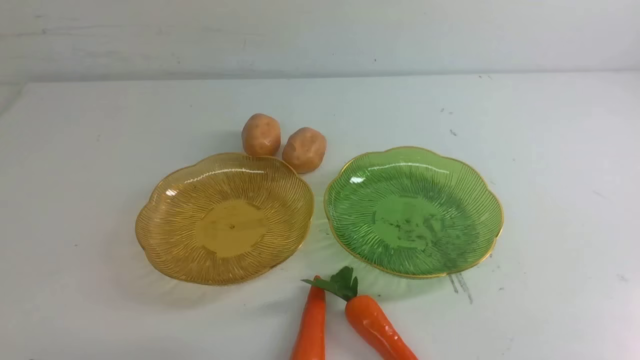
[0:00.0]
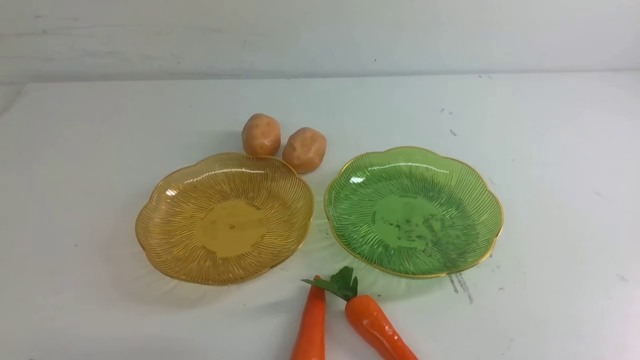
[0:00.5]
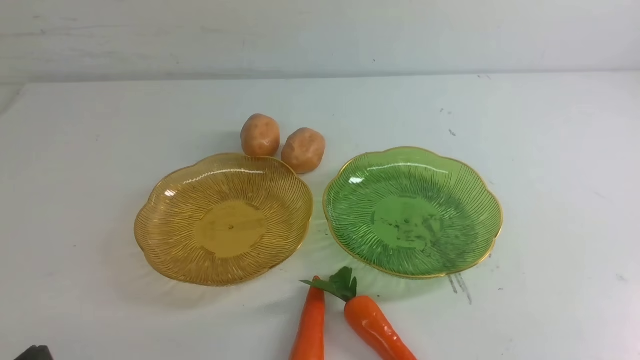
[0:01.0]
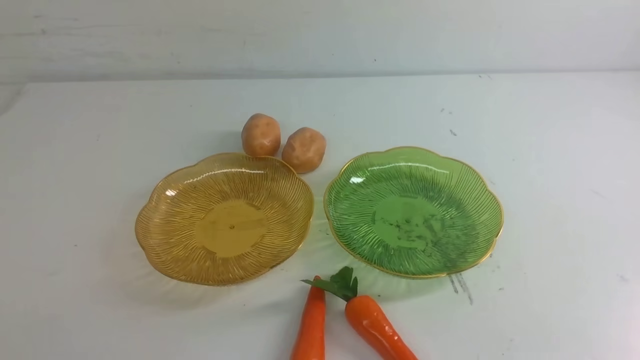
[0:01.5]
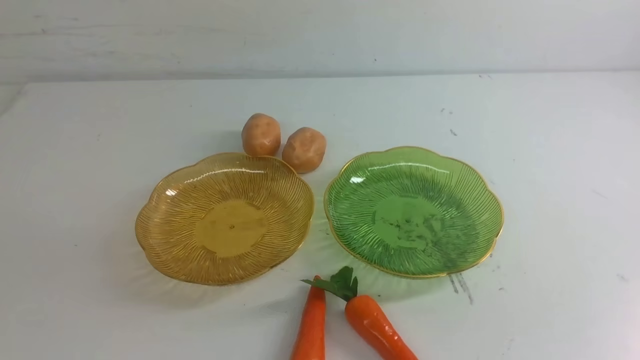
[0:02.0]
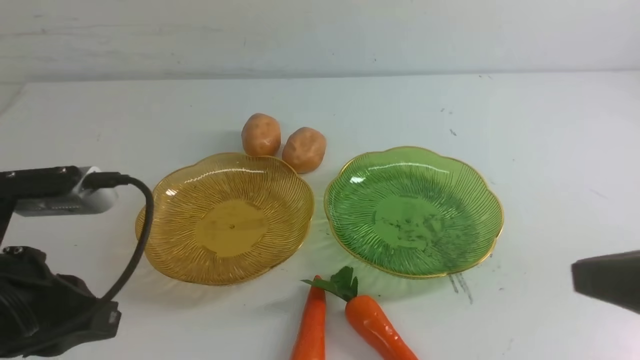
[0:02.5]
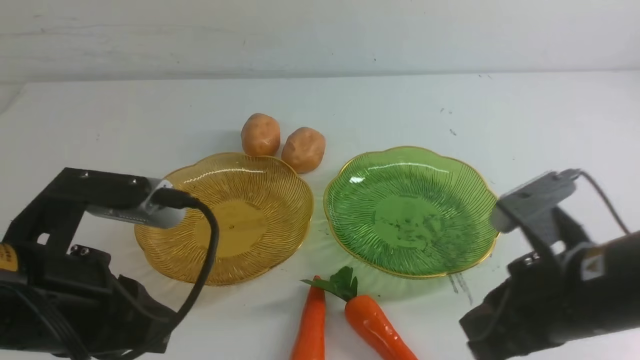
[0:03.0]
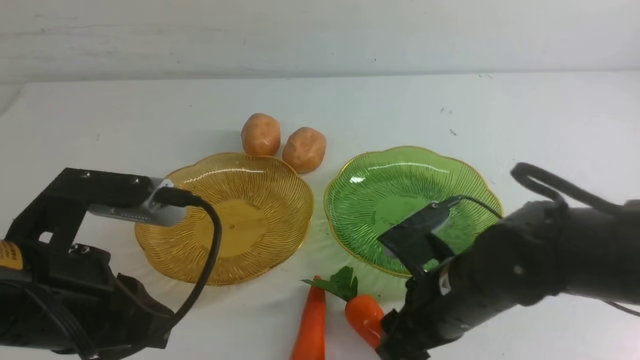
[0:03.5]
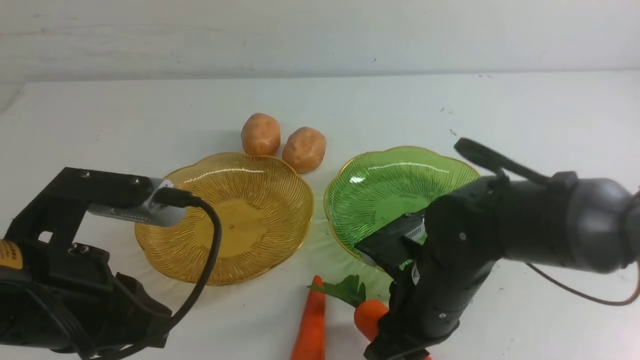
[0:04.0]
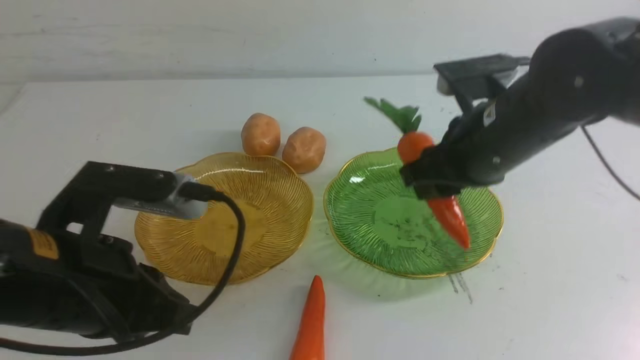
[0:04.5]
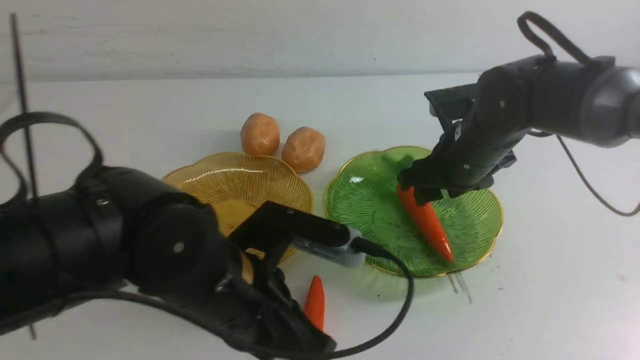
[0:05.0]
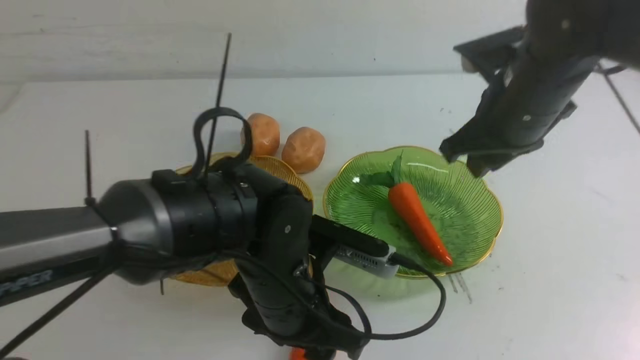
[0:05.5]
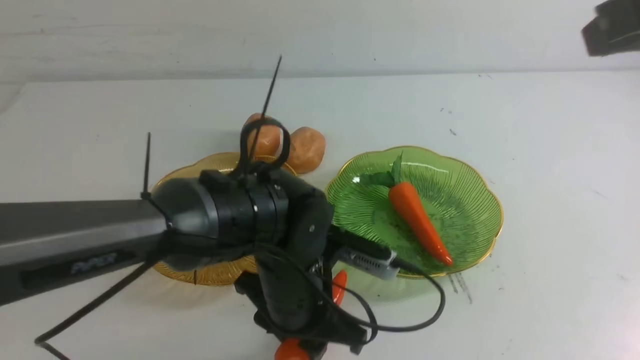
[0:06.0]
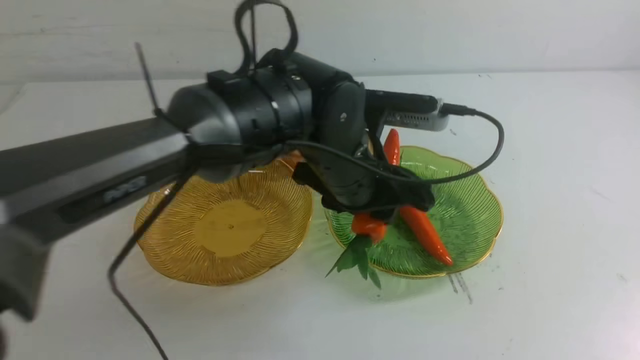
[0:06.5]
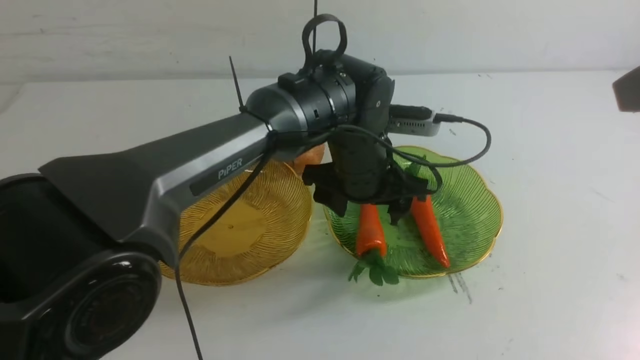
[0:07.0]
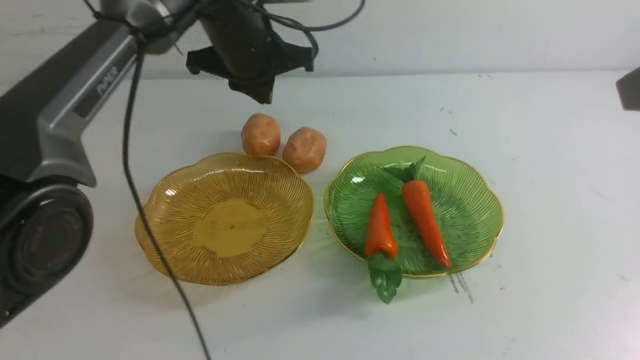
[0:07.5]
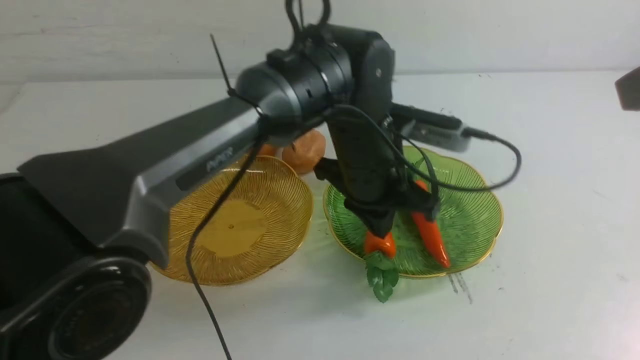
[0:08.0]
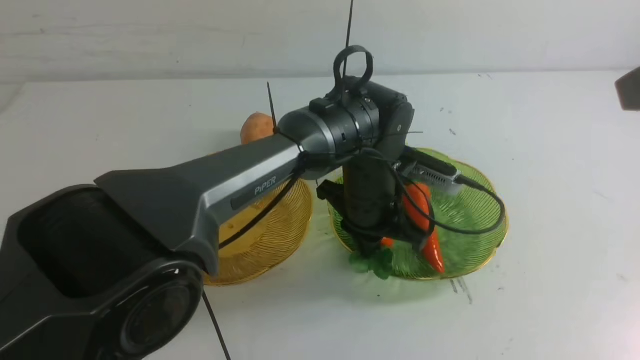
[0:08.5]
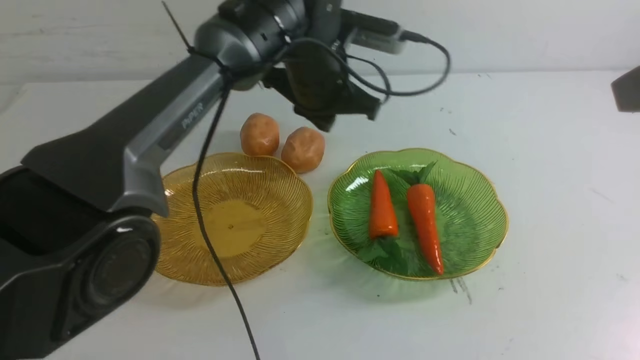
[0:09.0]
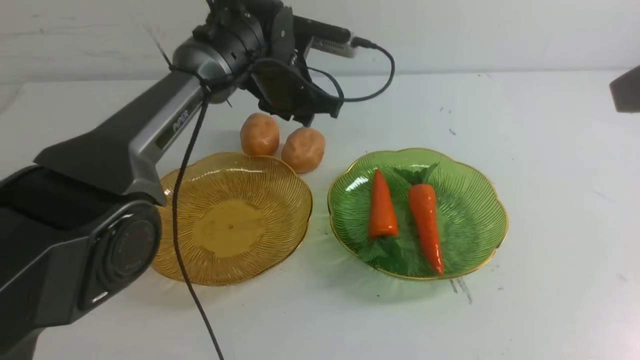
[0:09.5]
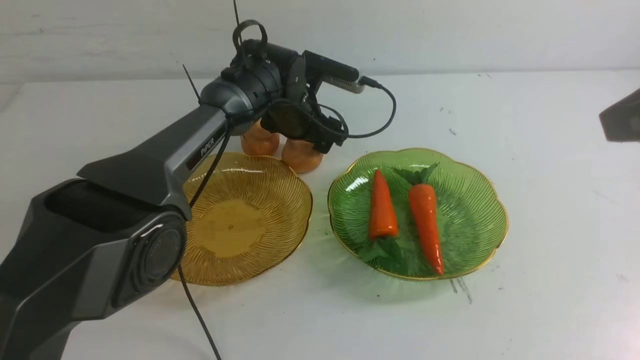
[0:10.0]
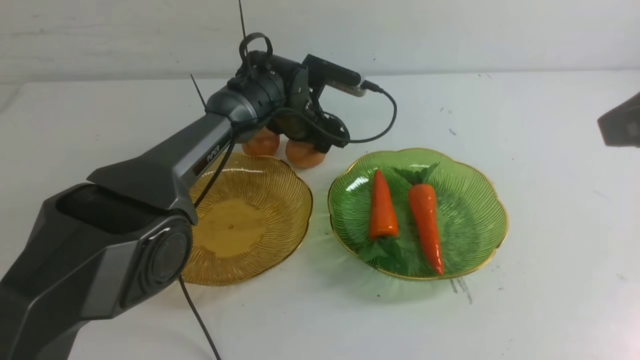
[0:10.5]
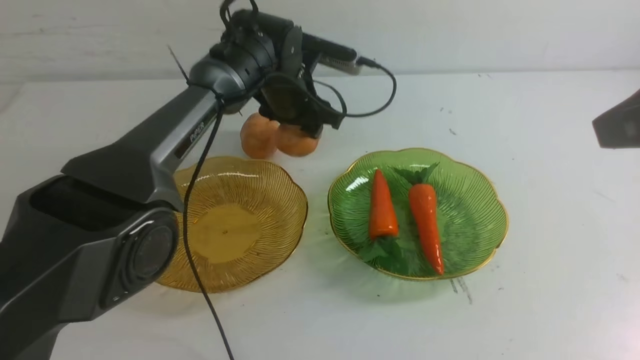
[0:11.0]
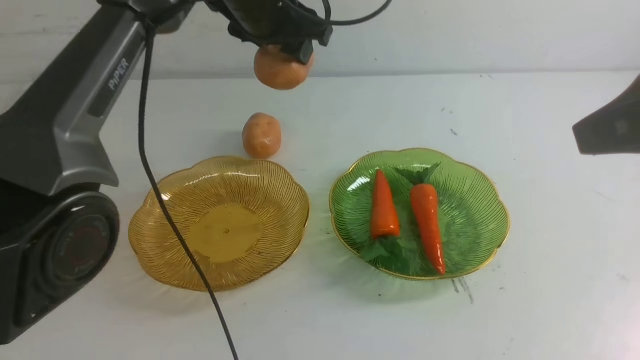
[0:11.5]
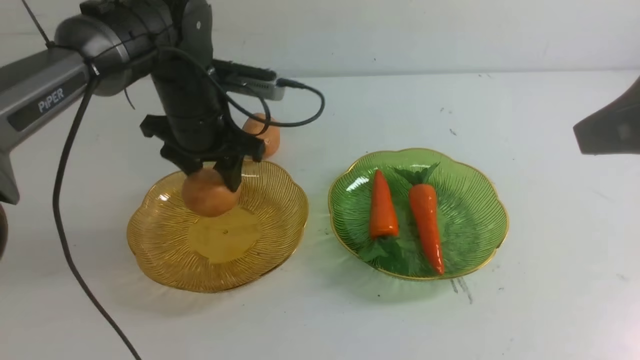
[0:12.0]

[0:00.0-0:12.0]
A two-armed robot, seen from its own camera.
Step, 0:00.0 to 0:05.0: use the right arm to grab a carrot and put it into the right plate.
Step, 0:05.5 to 0:07.0: use the left arm to grab a carrot and put it into the right plate.
0:02.0 to 0:04.0: The right gripper goes some 25 cm to the left and forward, and opens its fingers. Meanwhile the left gripper goes roughly 5 cm forward.
0:04.0 to 0:06.0: The left gripper shifts roughly 25 cm to the right and forward, and opens up. Meanwhile the right gripper travels upward and to the right by approximately 30 cm, and closes up.
0:06.0 to 0:08.0: The left gripper travels downward by roughly 5 cm, travels forward and back again, about 15 cm each way, and closes up.
0:08.0 to 0:10.0: The left gripper goes approximately 20 cm forward and to the left, and opens its fingers.
0:10.0 to 0:12.0: The left gripper travels to the left and backward by about 15 cm, reaches some 15 cm upward, then returns, and closes its fingers.

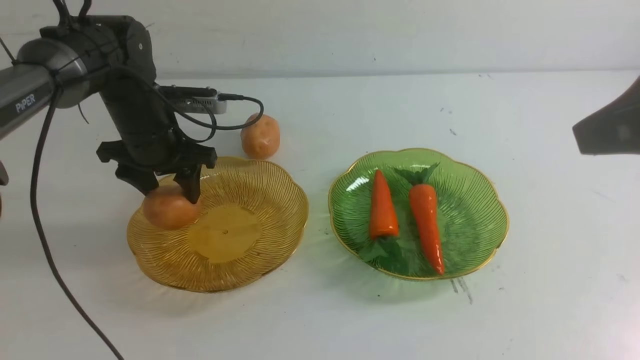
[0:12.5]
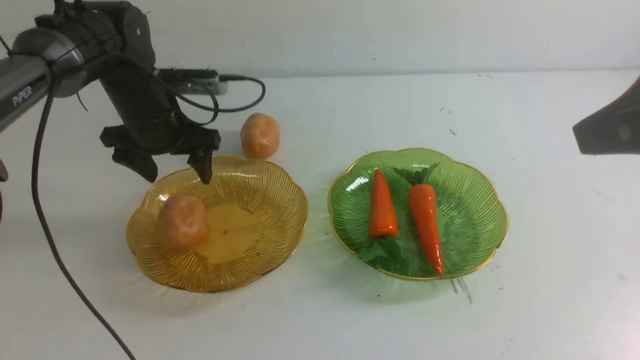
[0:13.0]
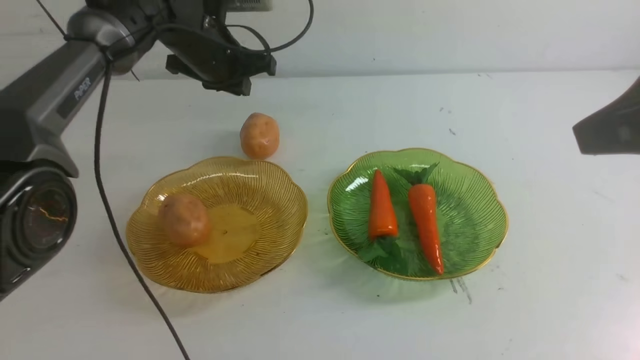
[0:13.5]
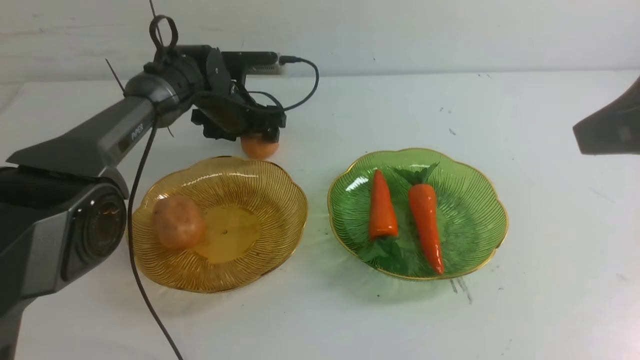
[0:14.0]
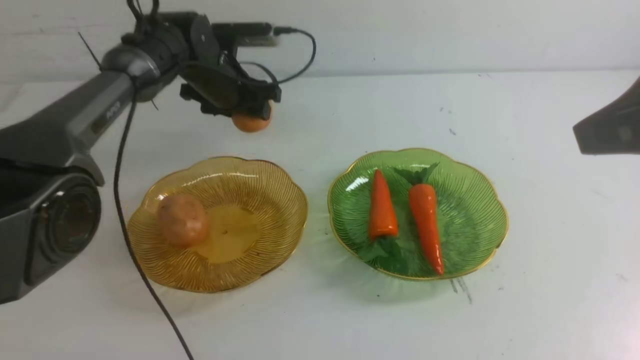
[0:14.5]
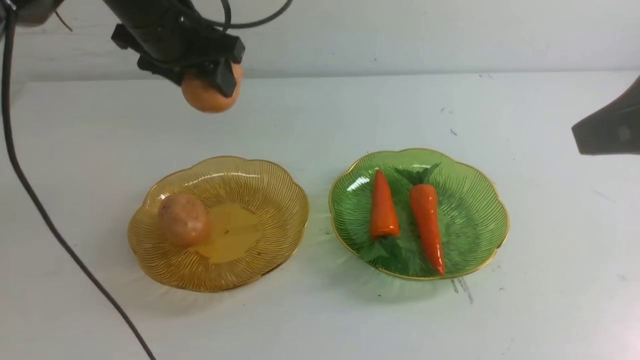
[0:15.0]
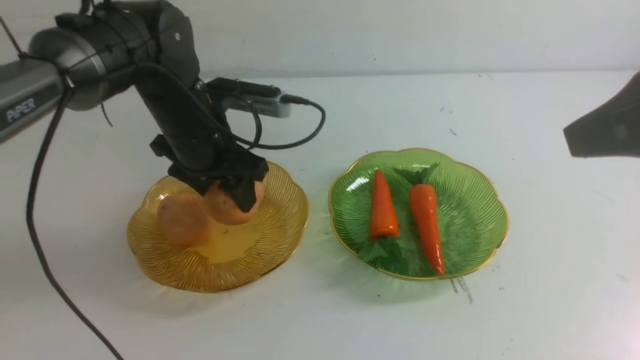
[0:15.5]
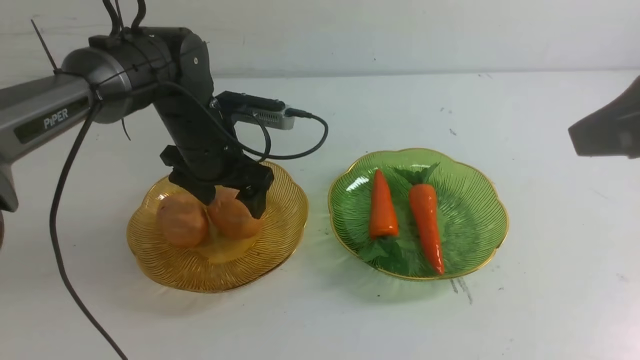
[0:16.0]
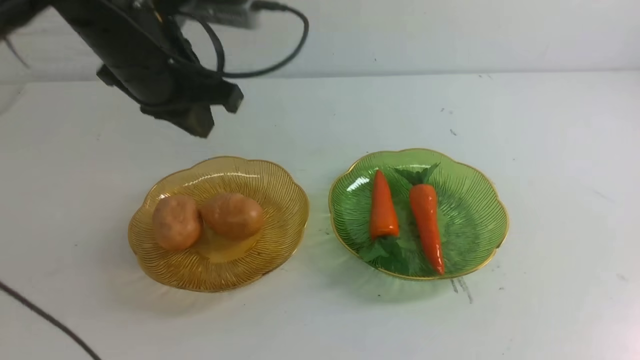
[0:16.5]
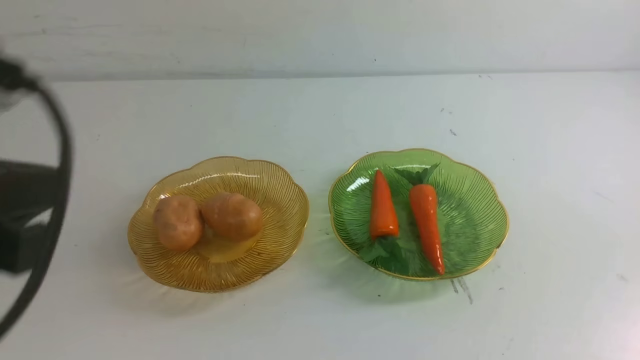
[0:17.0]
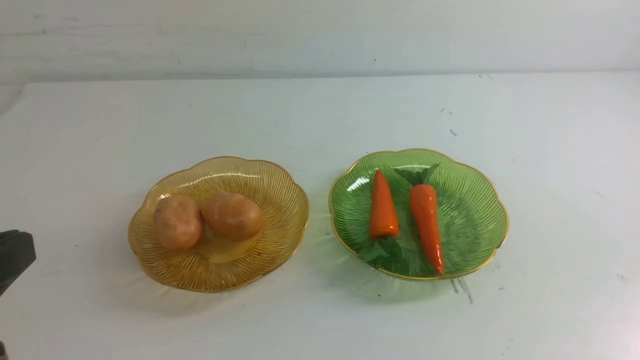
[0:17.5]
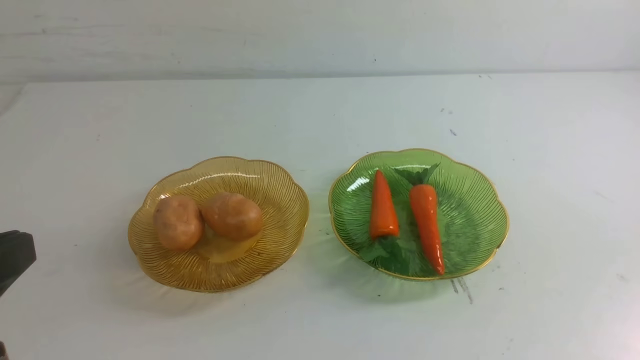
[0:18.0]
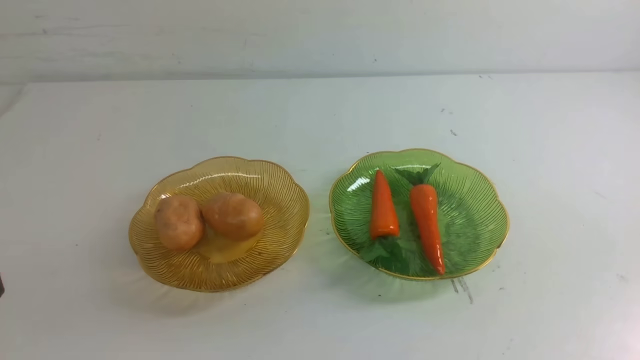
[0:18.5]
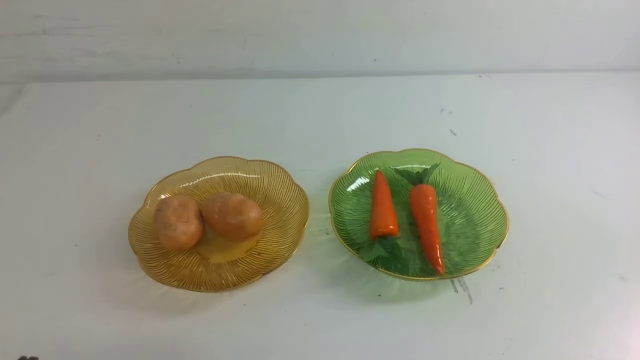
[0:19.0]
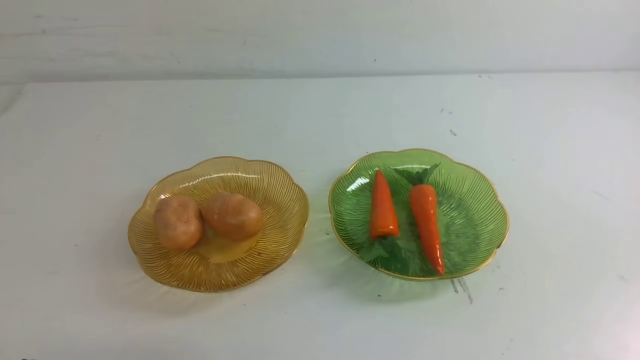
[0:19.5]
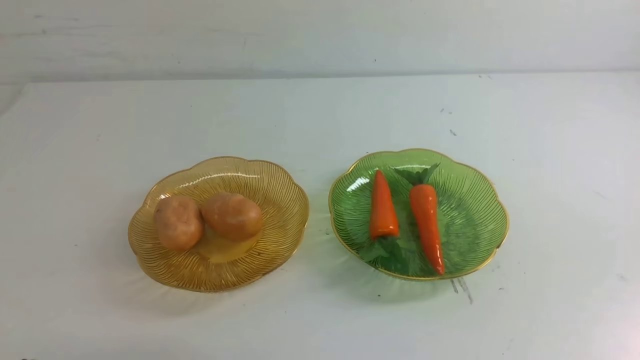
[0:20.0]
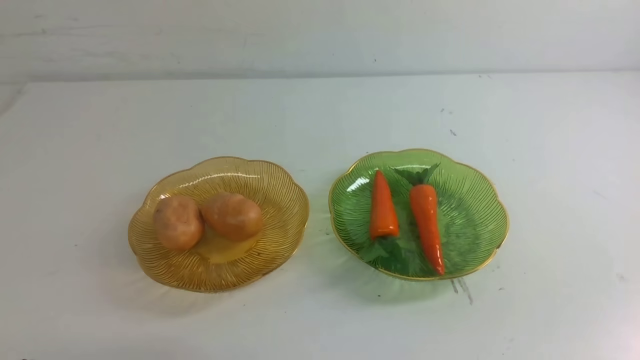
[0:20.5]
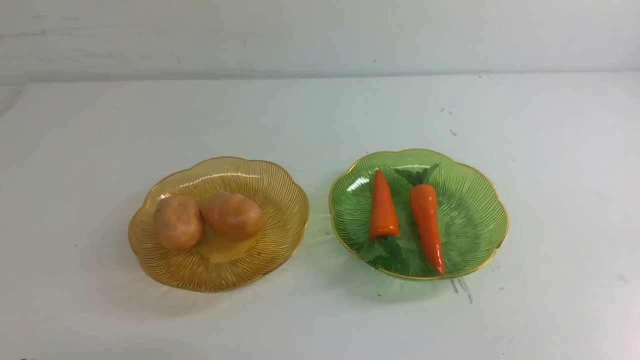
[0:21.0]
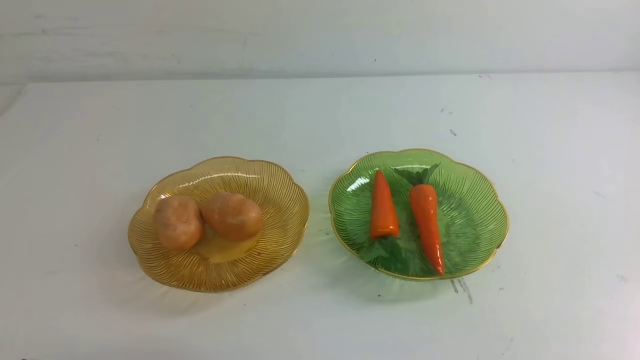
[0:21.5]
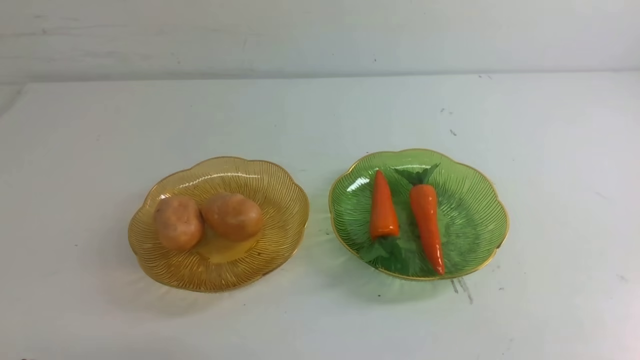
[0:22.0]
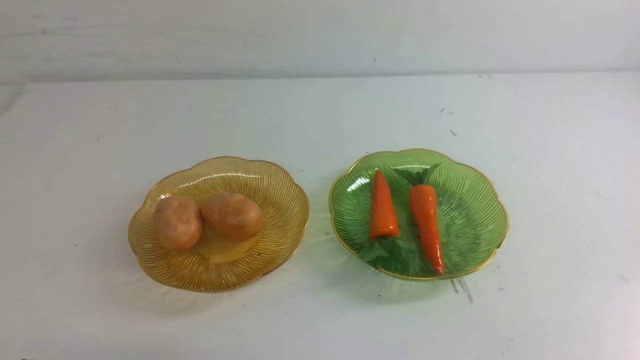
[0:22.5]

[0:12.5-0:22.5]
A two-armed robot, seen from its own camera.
Step, 0:13.5 to 0:16.0: Grab a potato with your left arm and put it on the left plate.
0:12.5 to 0:14.5: The left gripper swings up and down, approximately 15 cm each way, with 2 reversals.
0:14.5 to 0:16.5: The left gripper is displaced backward by approximately 35 cm, and closes up; the right gripper goes approximately 15 cm backward and to the right.
0:16.5 to 0:18.5: The left gripper moves downward, about 20 cm.
0:20.5 to 0:22.5: Neither gripper changes place.
